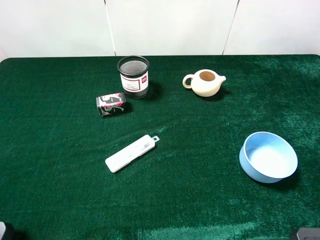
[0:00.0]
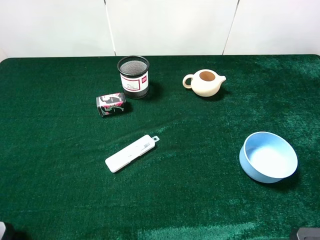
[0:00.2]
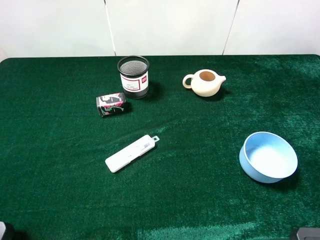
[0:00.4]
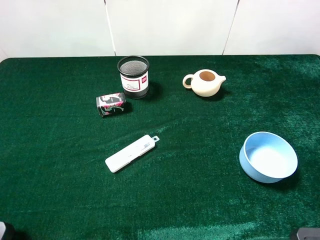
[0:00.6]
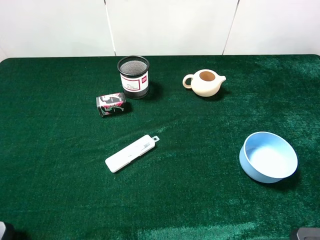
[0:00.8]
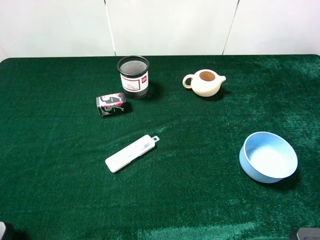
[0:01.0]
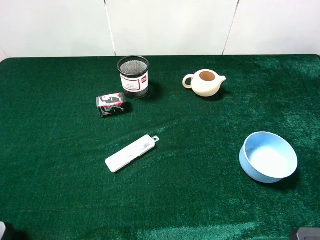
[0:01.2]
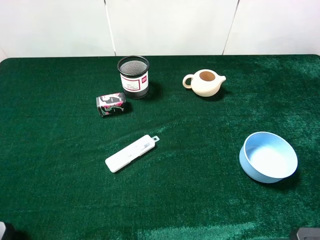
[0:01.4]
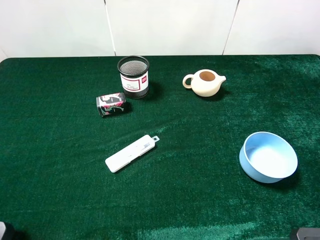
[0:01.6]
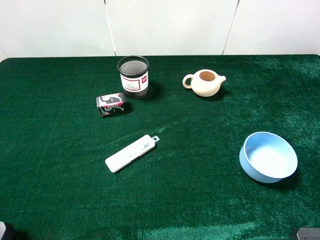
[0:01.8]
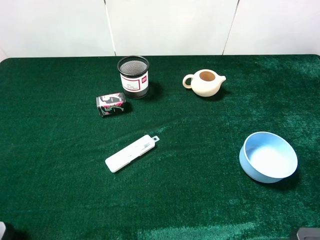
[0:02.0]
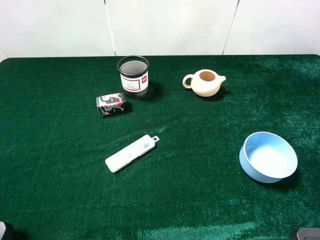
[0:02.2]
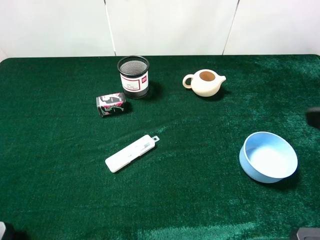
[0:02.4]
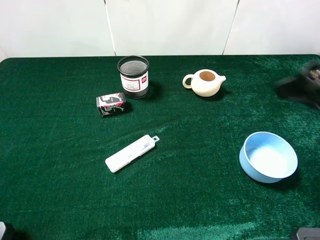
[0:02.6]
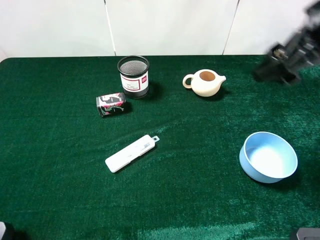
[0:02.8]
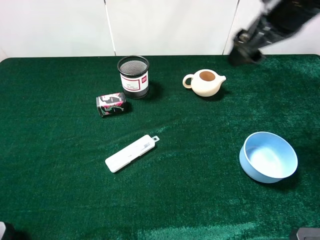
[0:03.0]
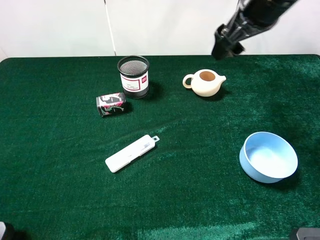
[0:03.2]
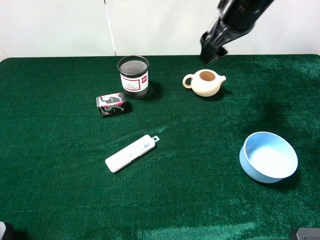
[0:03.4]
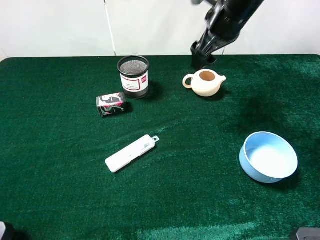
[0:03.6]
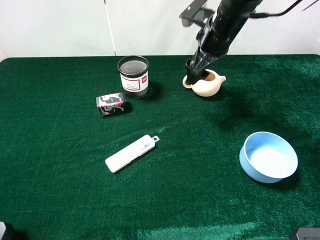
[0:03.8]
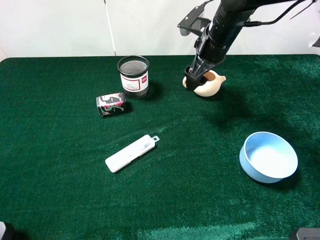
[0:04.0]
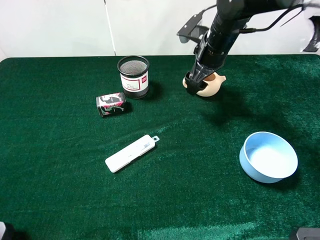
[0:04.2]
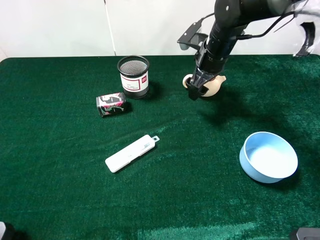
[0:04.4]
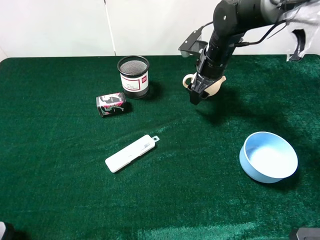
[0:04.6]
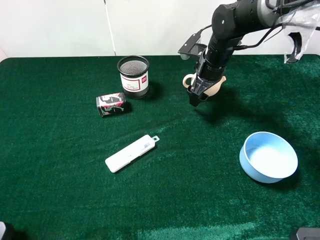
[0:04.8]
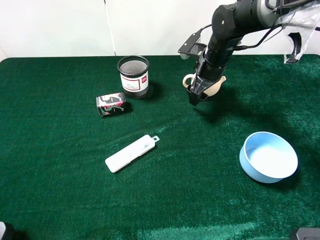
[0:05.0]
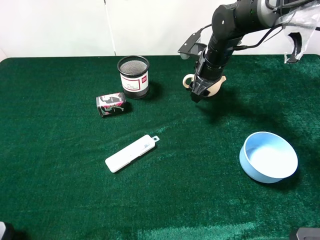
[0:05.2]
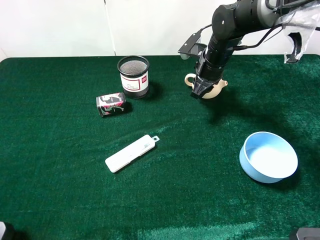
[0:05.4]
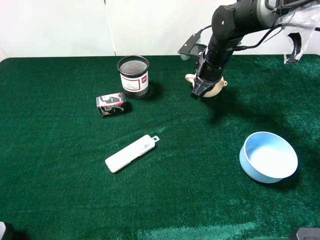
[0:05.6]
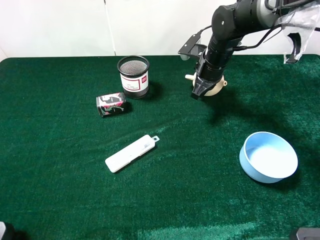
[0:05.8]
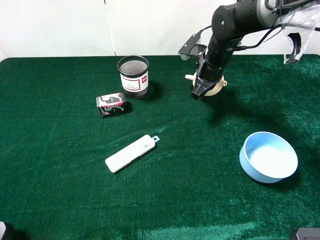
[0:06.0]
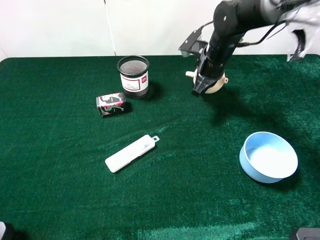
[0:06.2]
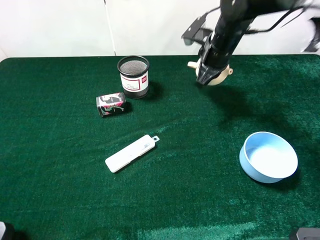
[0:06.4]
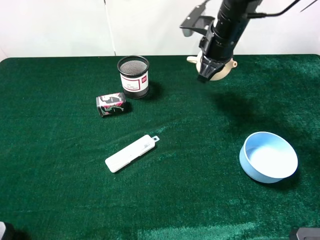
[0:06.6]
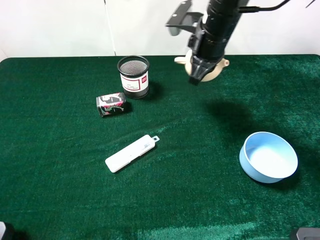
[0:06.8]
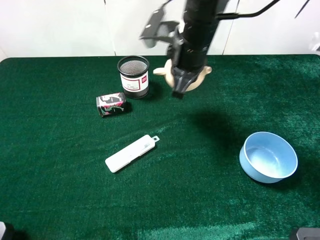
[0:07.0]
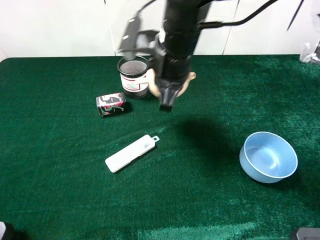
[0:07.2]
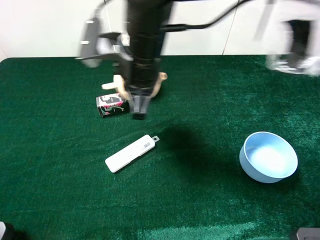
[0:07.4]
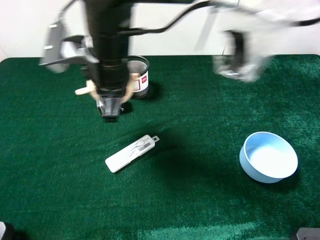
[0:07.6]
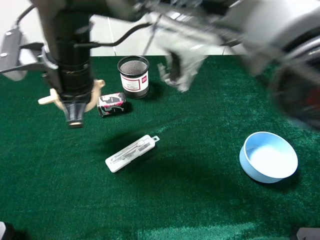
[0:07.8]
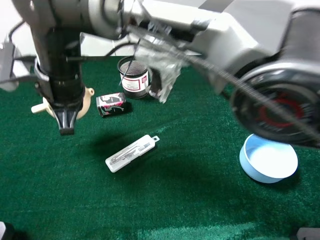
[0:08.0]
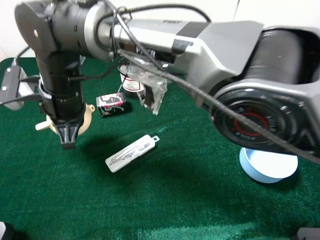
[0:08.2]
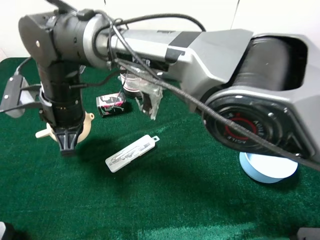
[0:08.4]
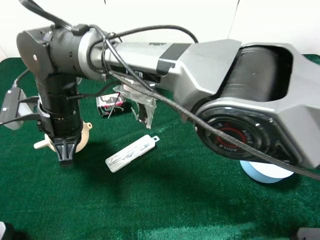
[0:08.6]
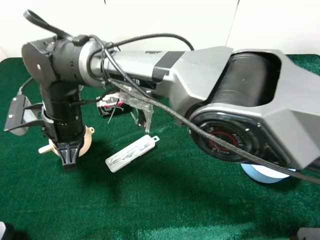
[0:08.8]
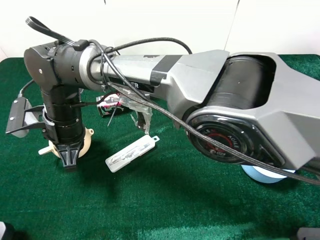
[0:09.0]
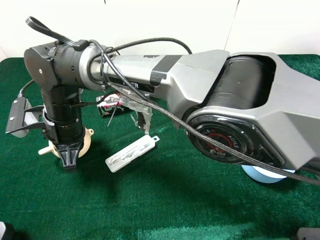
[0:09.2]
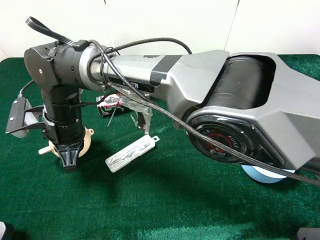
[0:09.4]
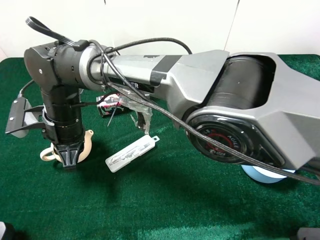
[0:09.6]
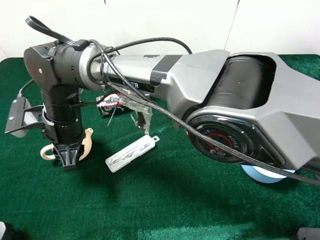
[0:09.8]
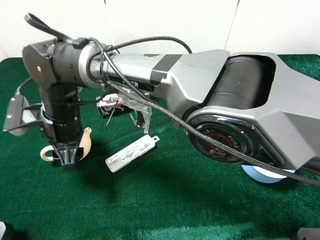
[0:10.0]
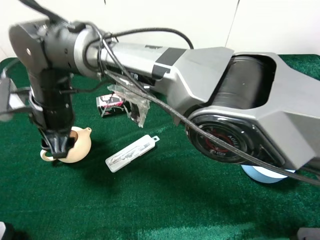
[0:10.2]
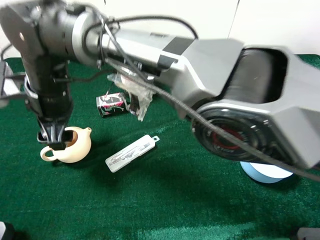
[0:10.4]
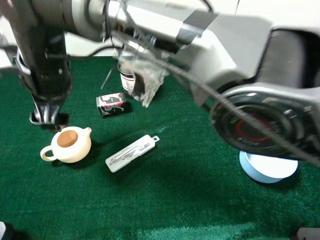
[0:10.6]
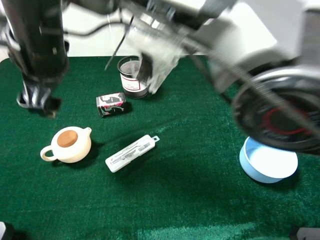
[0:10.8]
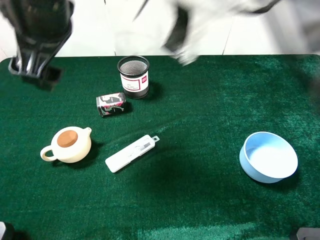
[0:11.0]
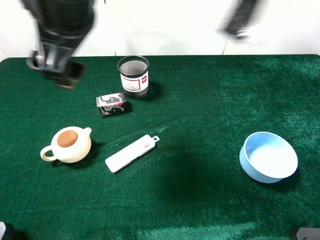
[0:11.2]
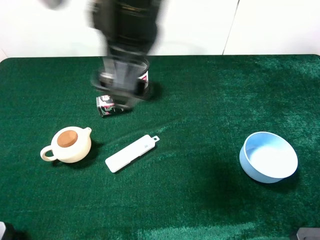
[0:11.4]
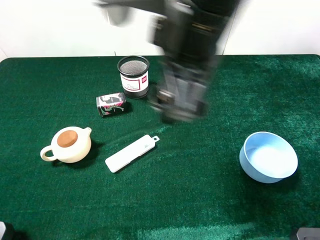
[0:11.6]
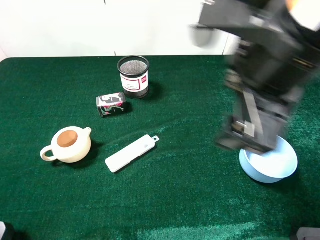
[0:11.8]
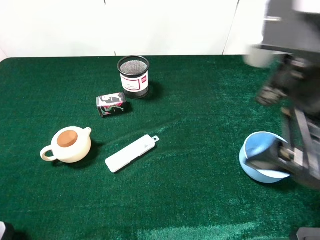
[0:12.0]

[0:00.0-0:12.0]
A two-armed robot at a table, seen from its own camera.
Task of the whole recording: the gripper move the object.
Step, 0:00.0 to 0:05.6: Grasp the teapot with the right gripper.
Step, 0:05.8 to 0:10.0: Place the teapot on the table with the right gripper.
0:00.0 to 0:01.6: Neither gripper changes place.
0:01.6 to 0:03.0: The right gripper goes roughly 30 cm forward and to the left.
0:03.0 to 0:04.4: The right gripper shifts about 20 cm downward and forward.
0:04.4 to 0:06.0: The right gripper closes its fingers.
0:06.0 to 0:07.6: The right gripper shifts some 30 cm to the left, backward and upward.
0:07.6 to 0:09.0: The right gripper travels downward and to the left by approximately 15 cm.
0:09.0 to 0:10.4: The right gripper travels upward by some 5 cm, and opens.
0:10.4 to 0:12.0: The right gripper shifts some 35 cm to the right.

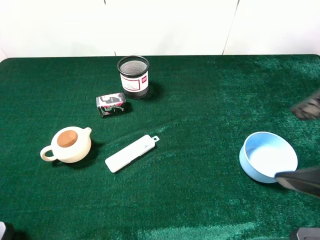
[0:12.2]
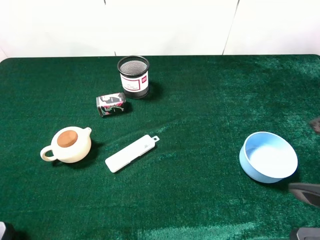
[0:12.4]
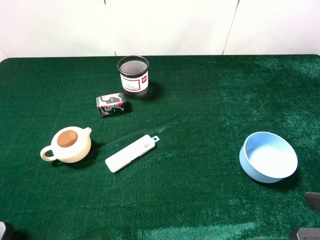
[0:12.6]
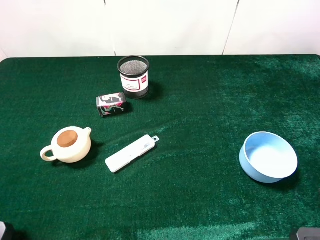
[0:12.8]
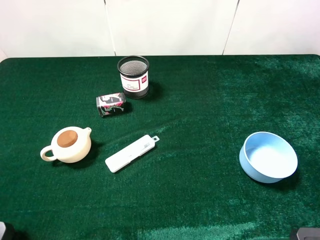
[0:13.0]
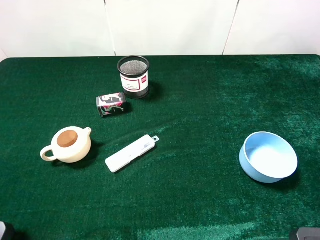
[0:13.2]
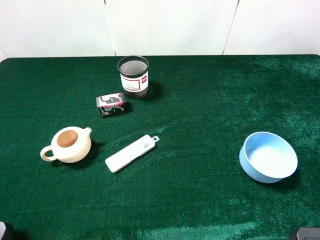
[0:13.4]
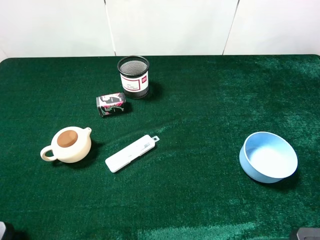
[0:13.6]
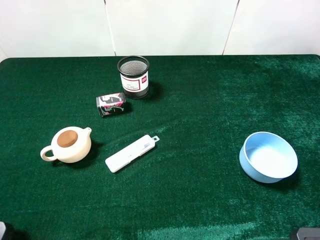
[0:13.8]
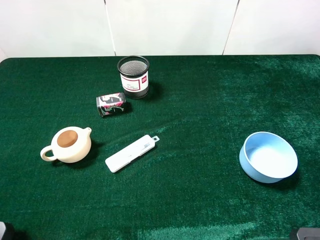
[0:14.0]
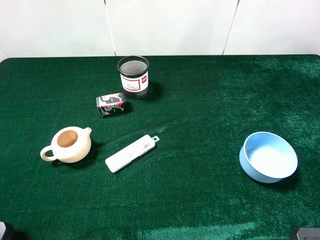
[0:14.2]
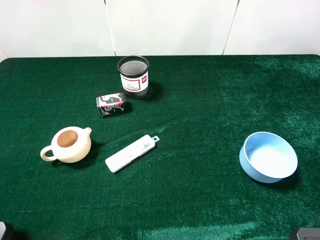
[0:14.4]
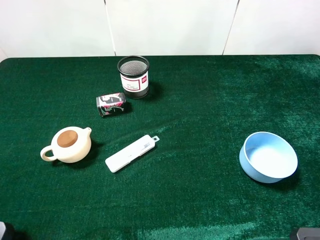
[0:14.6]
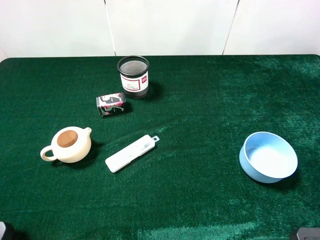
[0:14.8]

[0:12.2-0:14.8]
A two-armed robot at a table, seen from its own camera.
Task of the whole recording: the gripper move the object.
0:12.2 to 0:13.4: The right gripper shifts approximately 10 cm to the right and backward.

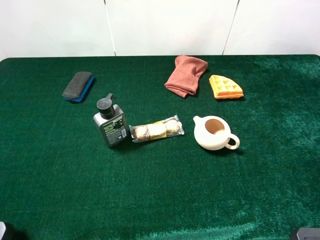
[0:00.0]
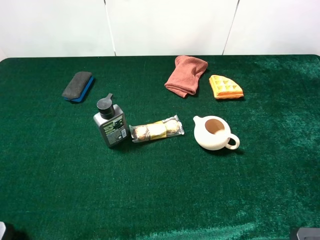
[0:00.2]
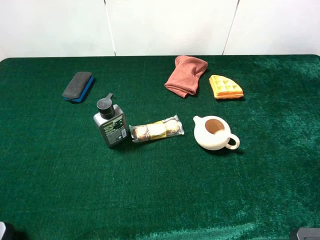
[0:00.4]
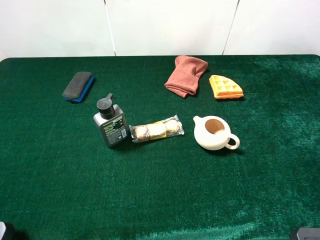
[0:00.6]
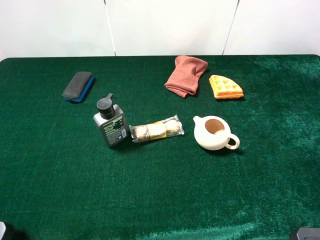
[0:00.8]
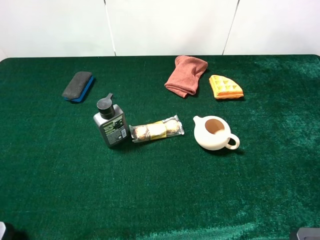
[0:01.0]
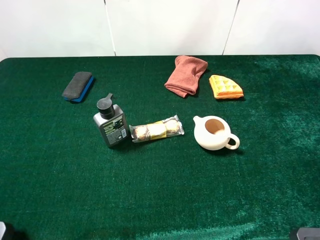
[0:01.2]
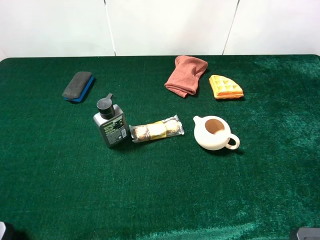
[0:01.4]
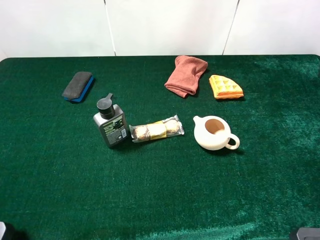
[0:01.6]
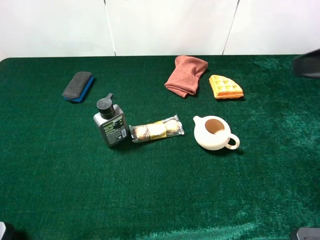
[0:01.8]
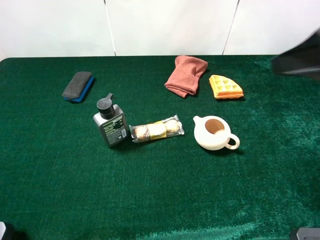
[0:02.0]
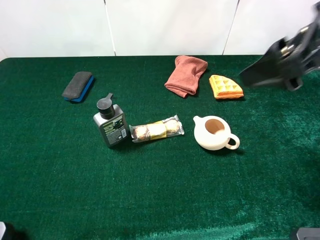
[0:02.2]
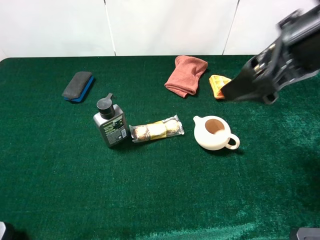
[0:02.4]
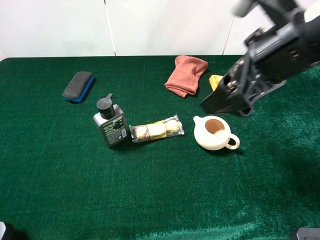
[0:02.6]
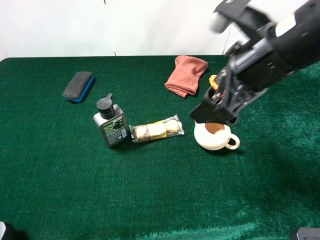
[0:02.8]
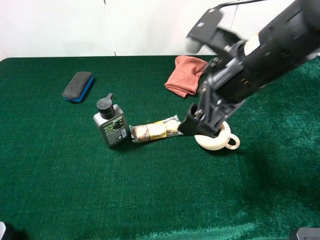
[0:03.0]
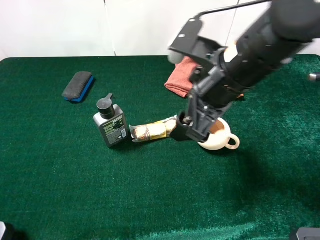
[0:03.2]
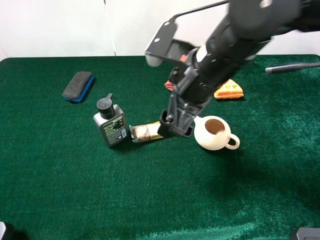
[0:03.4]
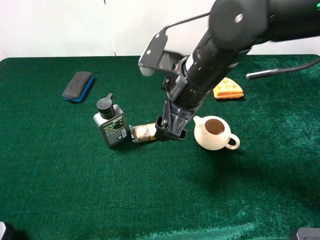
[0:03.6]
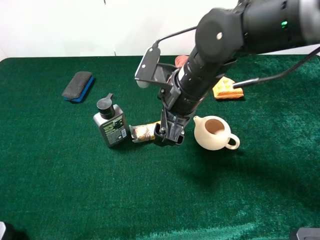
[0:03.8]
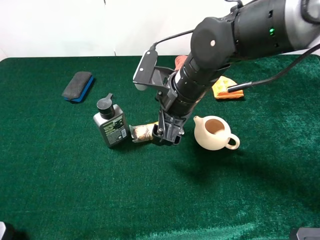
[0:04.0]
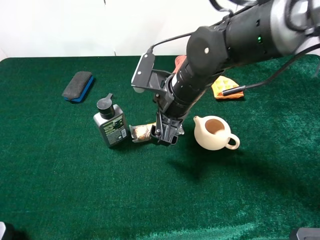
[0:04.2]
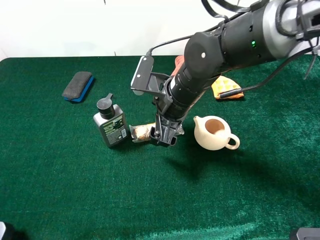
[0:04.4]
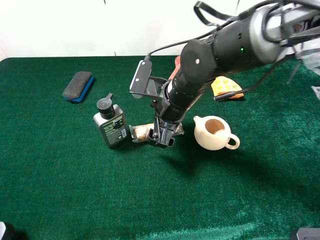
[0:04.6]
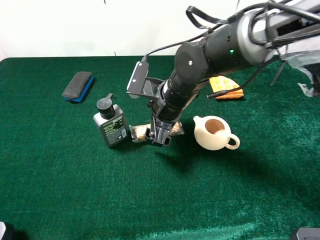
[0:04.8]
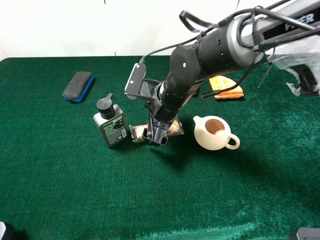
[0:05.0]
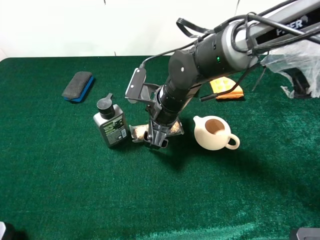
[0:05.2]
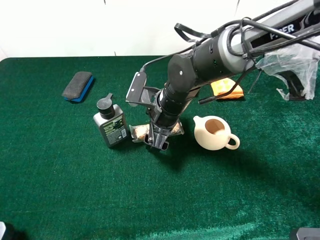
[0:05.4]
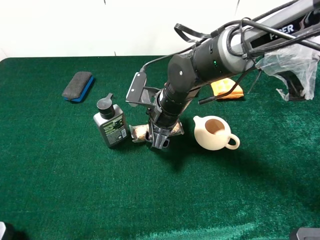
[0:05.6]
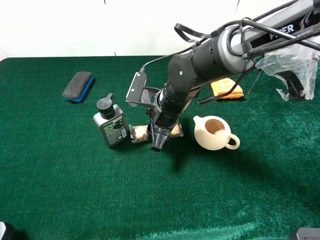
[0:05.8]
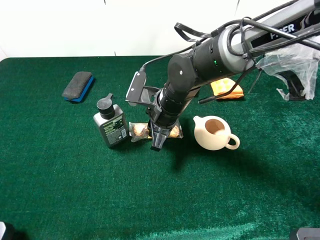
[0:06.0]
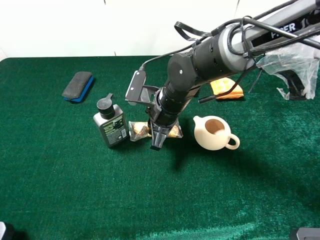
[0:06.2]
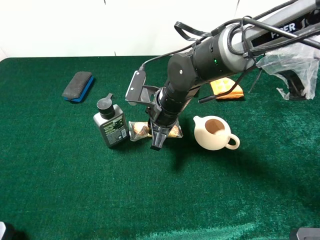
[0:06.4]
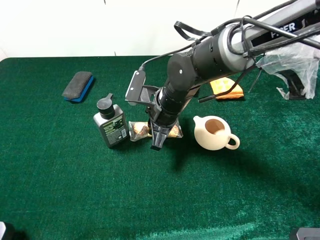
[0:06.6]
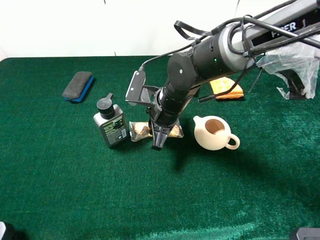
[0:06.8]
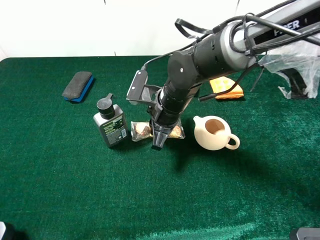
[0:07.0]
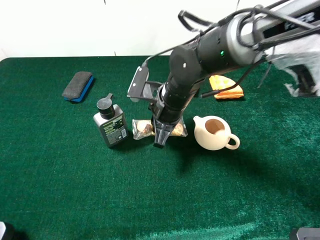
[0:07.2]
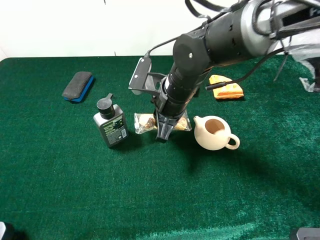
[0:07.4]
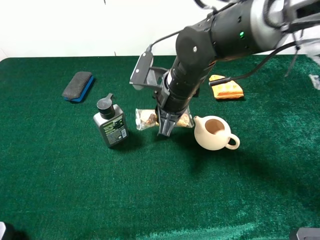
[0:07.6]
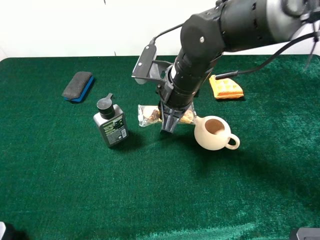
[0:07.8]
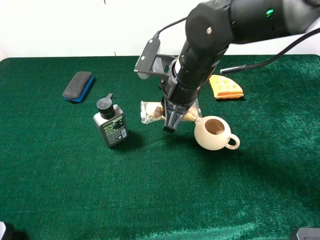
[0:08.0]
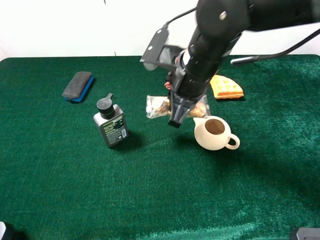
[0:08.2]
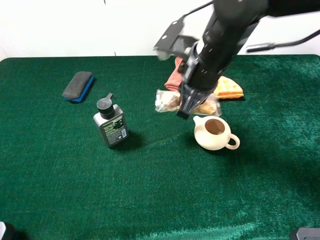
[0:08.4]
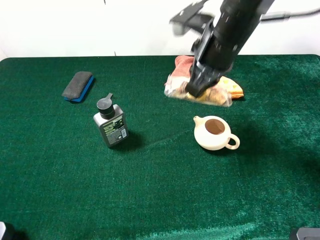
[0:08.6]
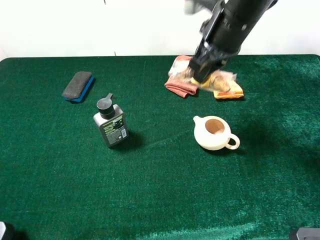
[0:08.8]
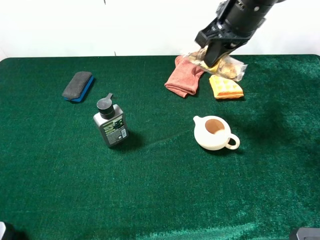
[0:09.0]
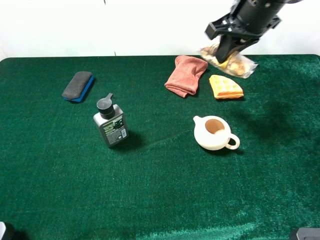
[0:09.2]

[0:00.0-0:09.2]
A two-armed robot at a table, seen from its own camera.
Task of the whole recording: the gripper move the object.
Step, 0:00.0 to 0:06.8: Grasp the chocolate with the right gripper.
0:01.6 to 0:03.0: The right gripper is displaced to the left, downward and forward by approximately 20 cm.
0:03.0 to 0:04.6: The right gripper goes roughly 15 cm downward, to the left and forward.
0:04.6 to 0:06.2: The right gripper closes up.
0:06.2 to 0:07.6: The right gripper heads upward, covering roughly 5 cm.
0:07.6 to 0:09.2: The right gripper heads upward, to the right and forward, covering roughly 20 cm.
